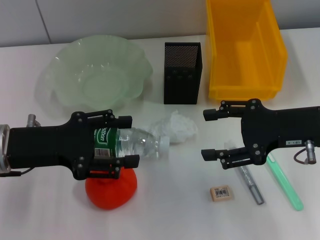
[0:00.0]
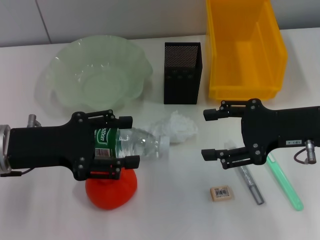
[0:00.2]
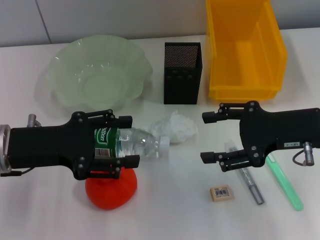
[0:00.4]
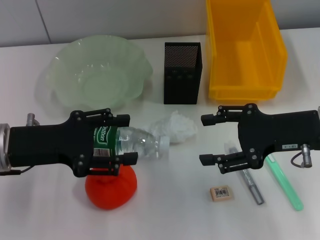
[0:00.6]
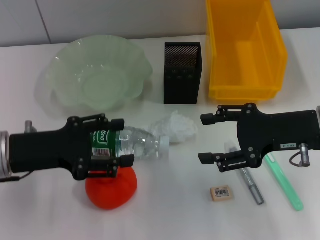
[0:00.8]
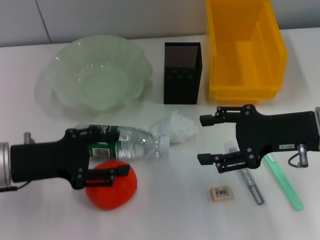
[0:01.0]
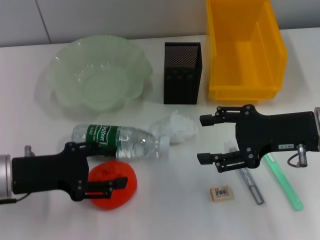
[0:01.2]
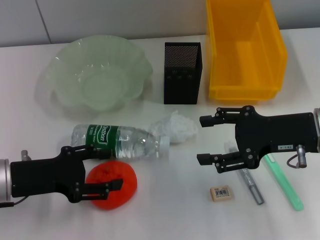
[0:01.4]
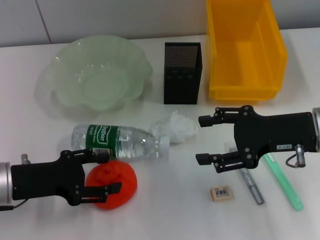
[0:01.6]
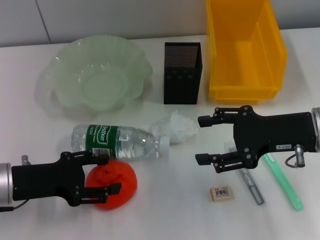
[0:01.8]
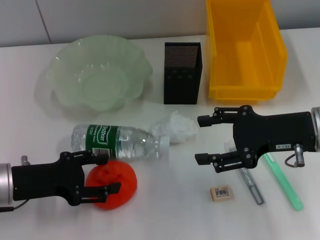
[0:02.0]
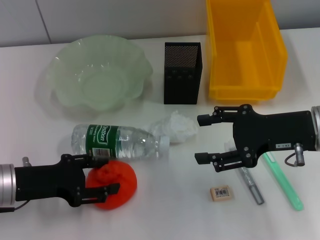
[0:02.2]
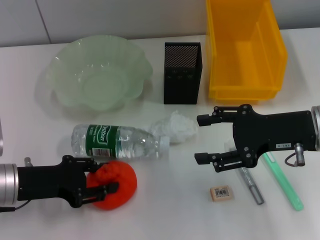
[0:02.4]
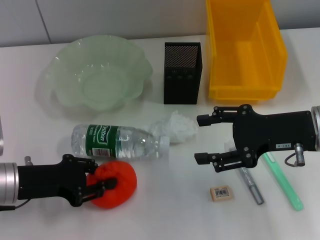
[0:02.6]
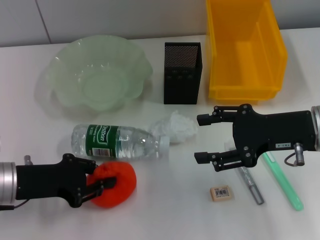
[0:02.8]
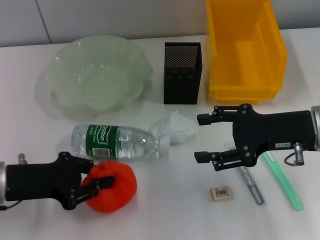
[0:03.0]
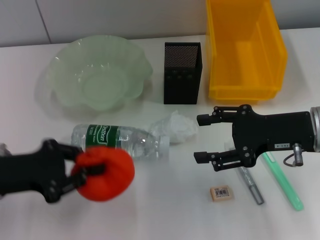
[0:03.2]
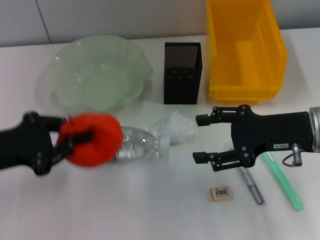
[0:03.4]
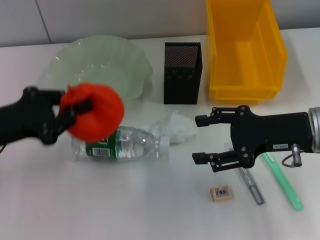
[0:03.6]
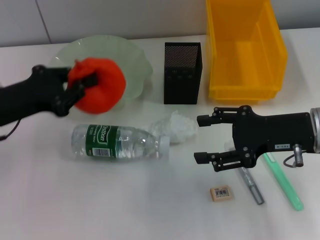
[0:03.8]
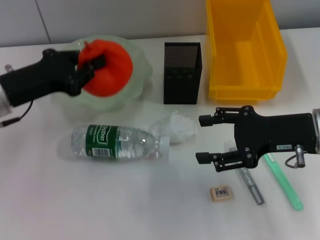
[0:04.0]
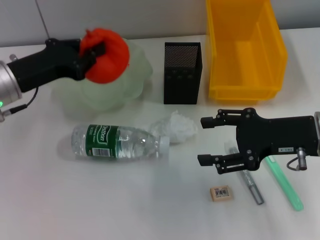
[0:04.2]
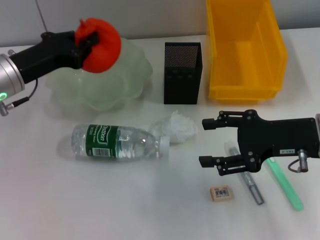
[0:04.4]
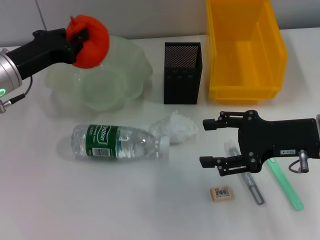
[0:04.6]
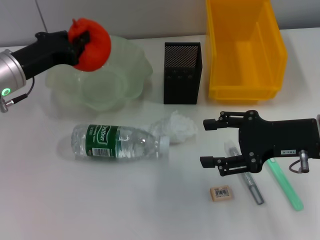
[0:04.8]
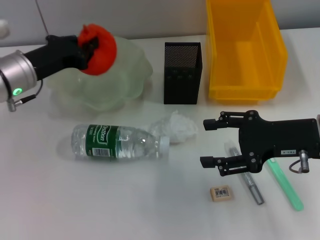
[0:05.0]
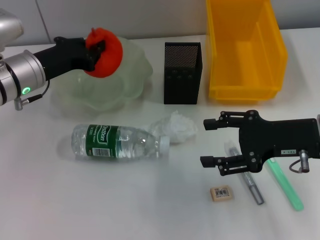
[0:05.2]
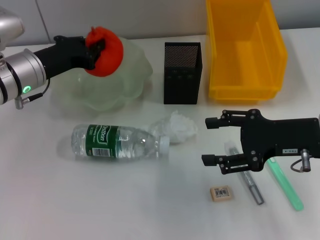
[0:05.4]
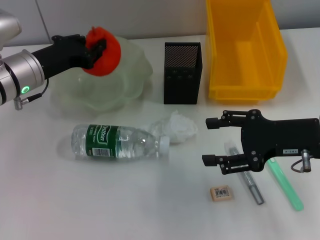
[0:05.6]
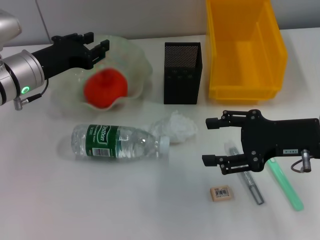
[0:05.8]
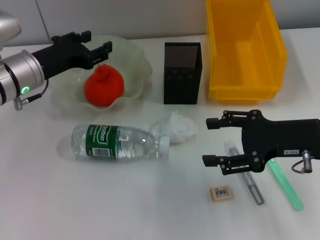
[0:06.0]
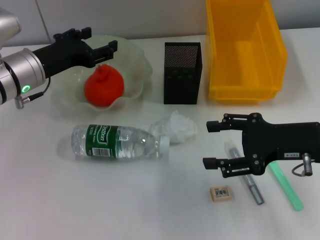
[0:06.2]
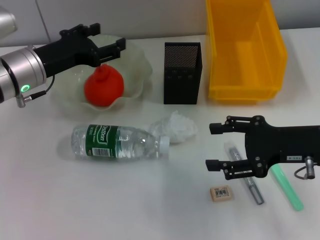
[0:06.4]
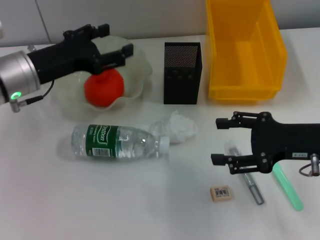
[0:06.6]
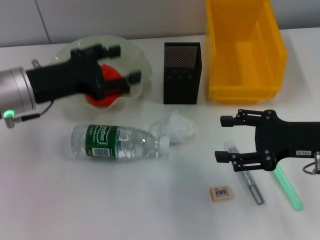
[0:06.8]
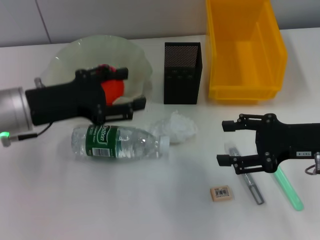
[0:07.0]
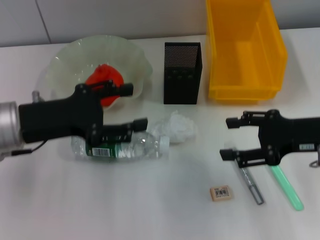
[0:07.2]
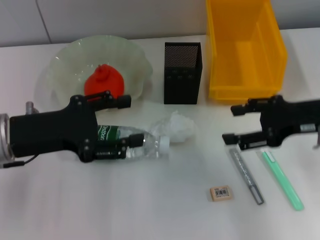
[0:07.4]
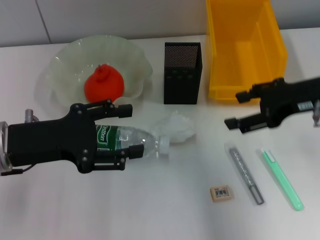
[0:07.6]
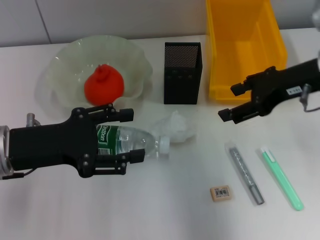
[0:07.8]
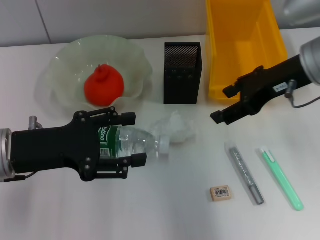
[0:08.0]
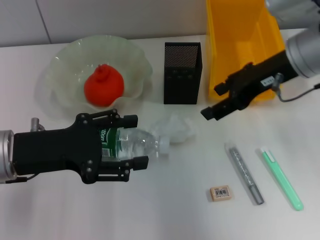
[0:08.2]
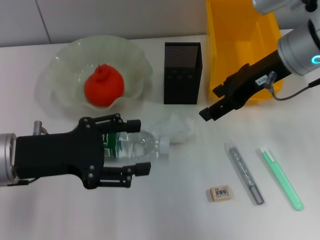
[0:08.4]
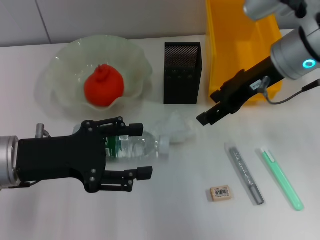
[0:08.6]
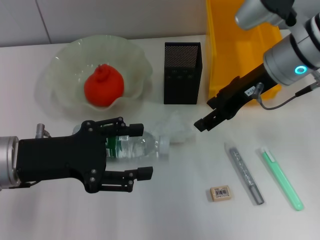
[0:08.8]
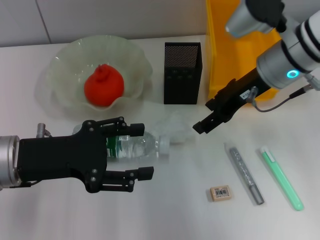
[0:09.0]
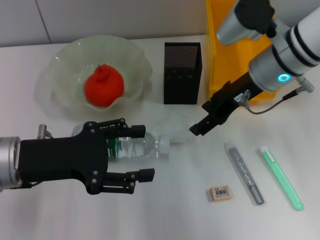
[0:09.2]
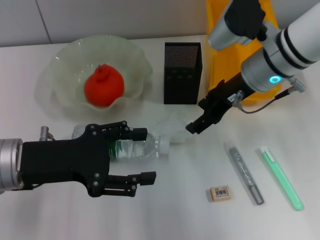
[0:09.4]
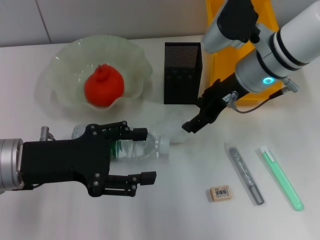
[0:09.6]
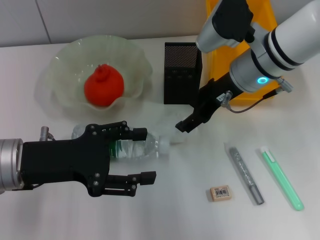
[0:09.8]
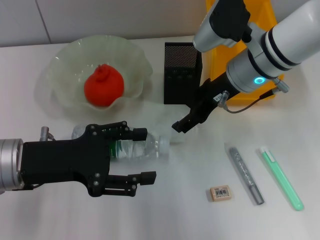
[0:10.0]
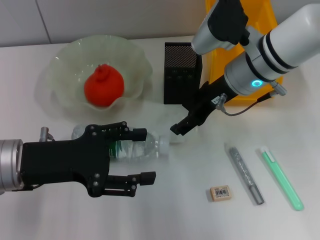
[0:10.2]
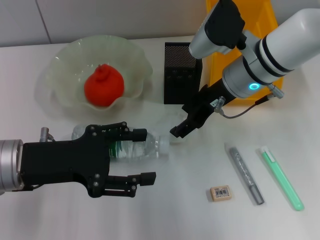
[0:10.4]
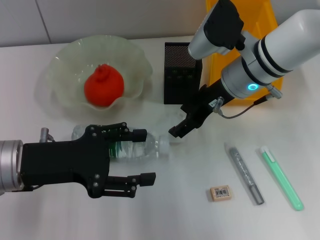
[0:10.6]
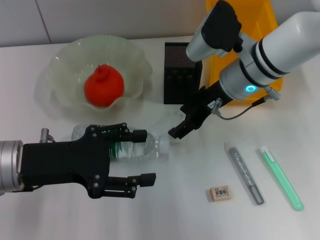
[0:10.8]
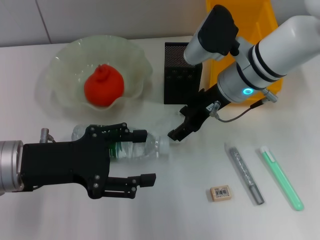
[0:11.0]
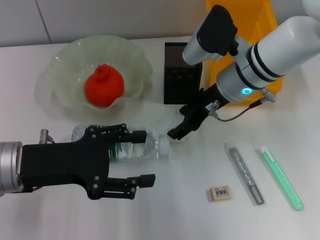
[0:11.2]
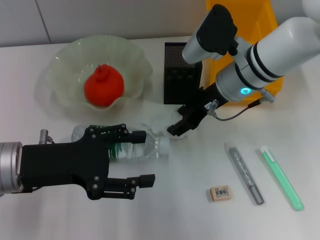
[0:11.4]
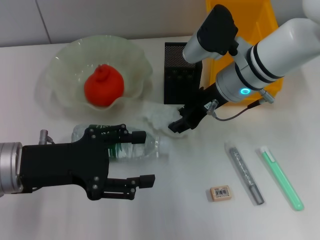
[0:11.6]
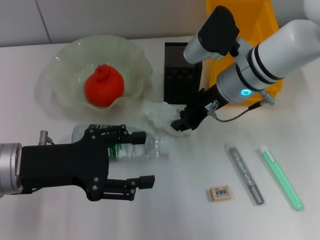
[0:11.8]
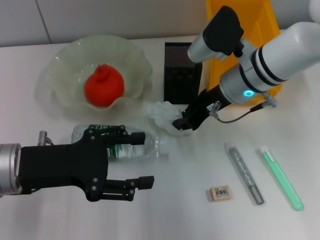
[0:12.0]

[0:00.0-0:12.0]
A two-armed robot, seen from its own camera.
Step, 0:00.0 to 0:02.6: Grab the orange with the left hand.
Step, 0:02.8 to 0:06.0: Place the orange into the fruit bowl with the left hand.
Step, 0:06.2 to 0:11.8: Grab the paper ball with the right hand.
0:00.0 to 0:01.6: The left gripper heads downward, covering about 5 cm.
0:01.6 to 0:03.0: The left gripper closes.
0:03.0 to 0:04.4: The left gripper moves forward and upward, roughly 10 cm.
0:04.4 to 0:06.0: The left gripper opens its fingers.
0:06.0 to 0:07.6: The left gripper moves backward, roughly 10 cm, and opens up, while the right gripper goes some 5 cm upward.
0:07.6 to 0:09.0: The right gripper shifts approximately 10 cm to the left and forward.
0:09.0 to 0:10.4: There are only small adjustments of the grippers.
0:10.4 to 0:12.0: The right gripper closes its fingers.

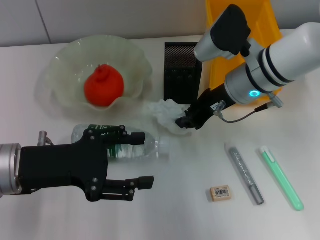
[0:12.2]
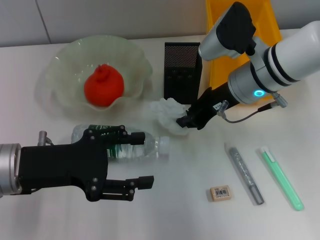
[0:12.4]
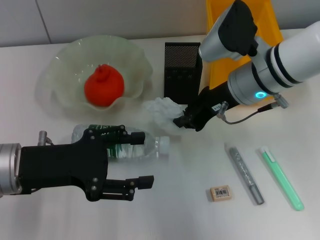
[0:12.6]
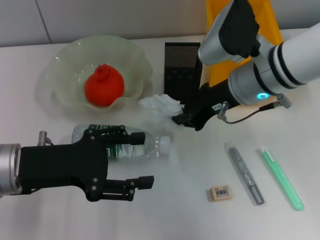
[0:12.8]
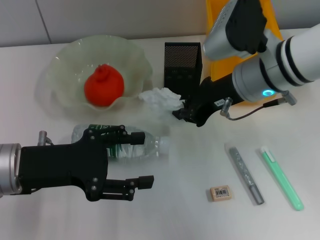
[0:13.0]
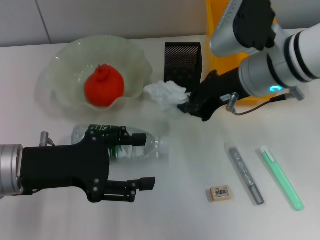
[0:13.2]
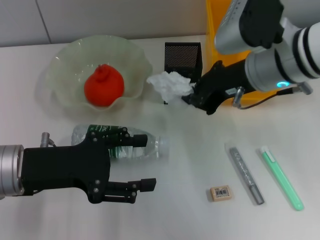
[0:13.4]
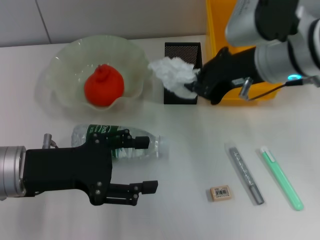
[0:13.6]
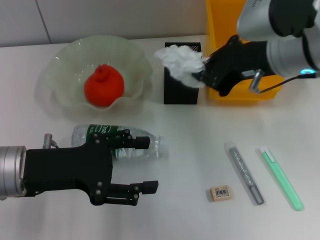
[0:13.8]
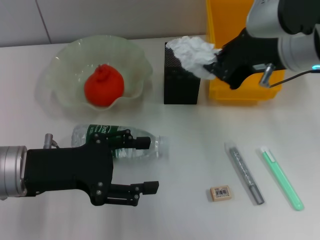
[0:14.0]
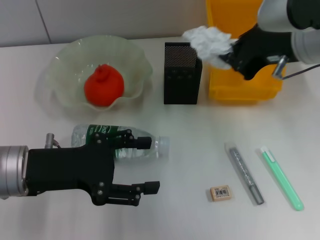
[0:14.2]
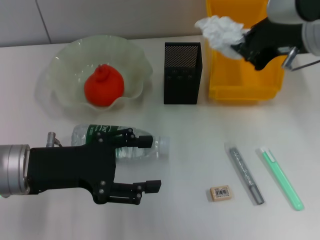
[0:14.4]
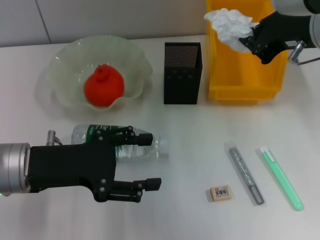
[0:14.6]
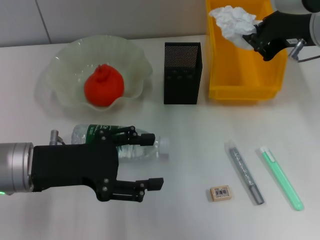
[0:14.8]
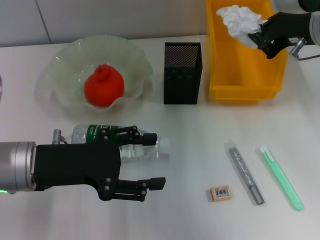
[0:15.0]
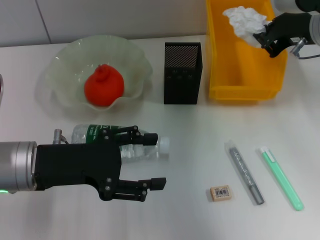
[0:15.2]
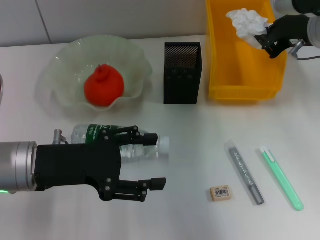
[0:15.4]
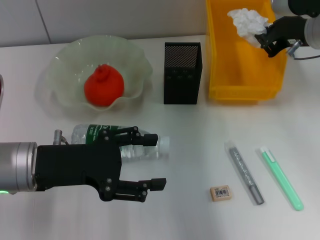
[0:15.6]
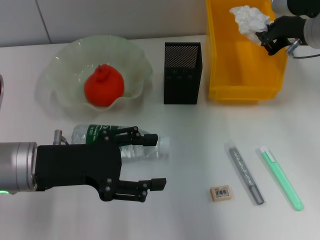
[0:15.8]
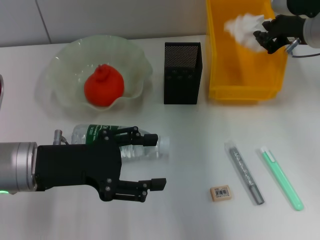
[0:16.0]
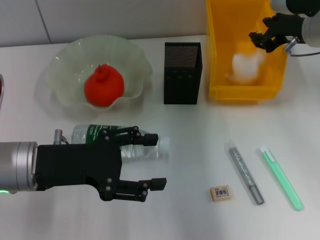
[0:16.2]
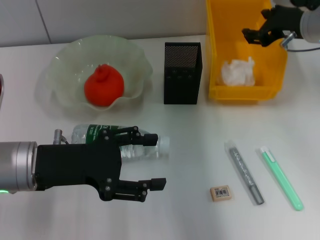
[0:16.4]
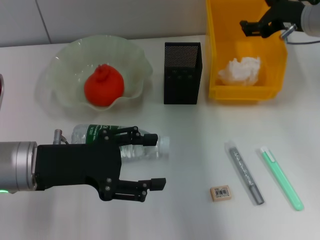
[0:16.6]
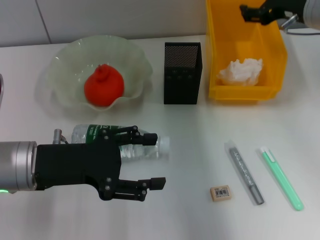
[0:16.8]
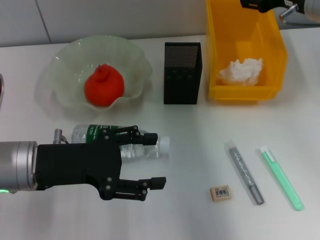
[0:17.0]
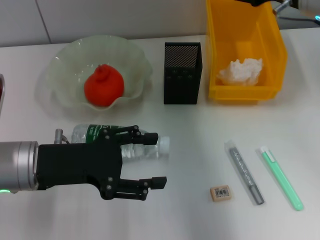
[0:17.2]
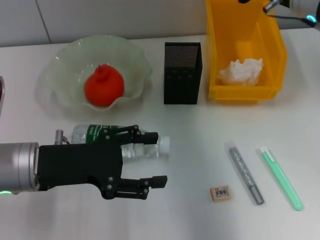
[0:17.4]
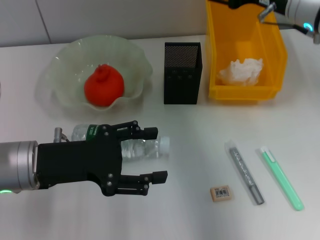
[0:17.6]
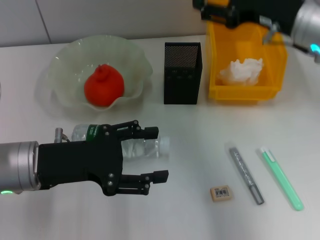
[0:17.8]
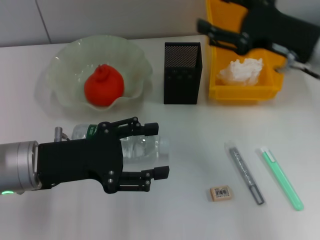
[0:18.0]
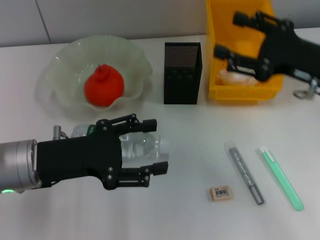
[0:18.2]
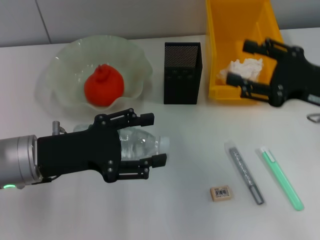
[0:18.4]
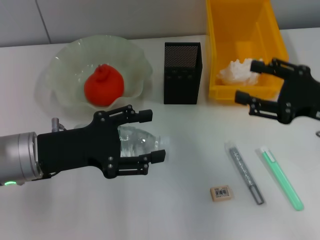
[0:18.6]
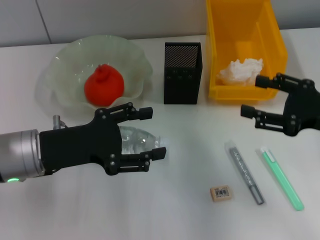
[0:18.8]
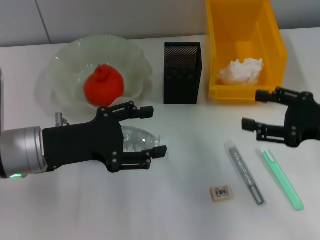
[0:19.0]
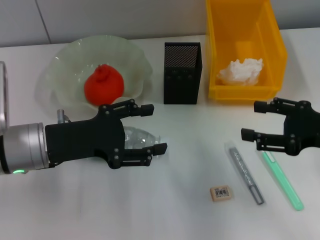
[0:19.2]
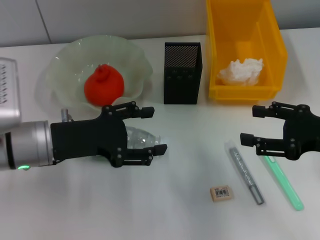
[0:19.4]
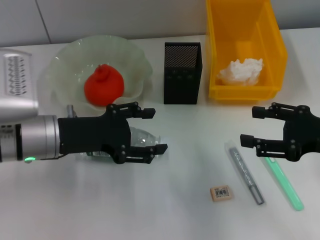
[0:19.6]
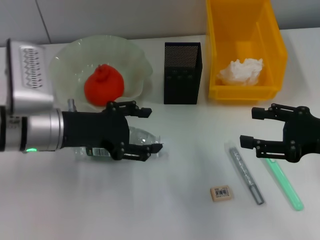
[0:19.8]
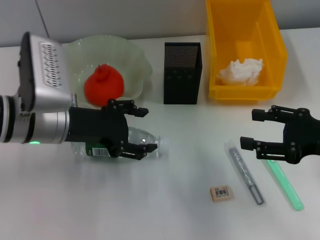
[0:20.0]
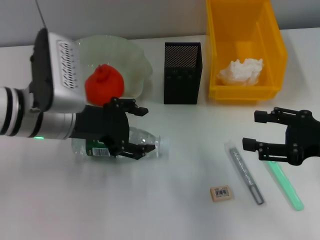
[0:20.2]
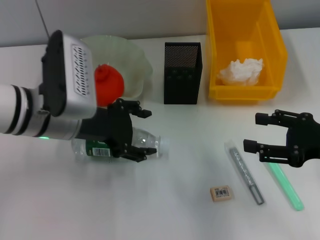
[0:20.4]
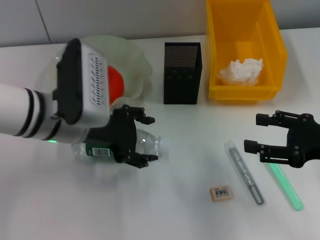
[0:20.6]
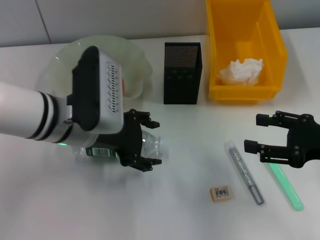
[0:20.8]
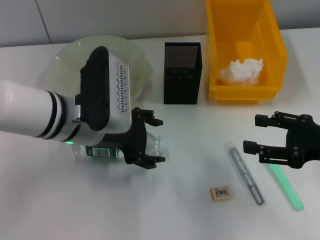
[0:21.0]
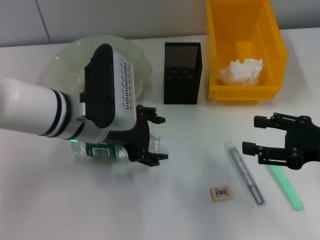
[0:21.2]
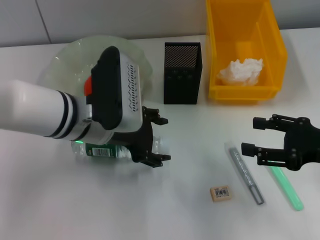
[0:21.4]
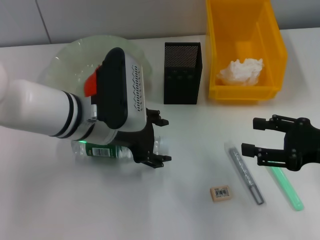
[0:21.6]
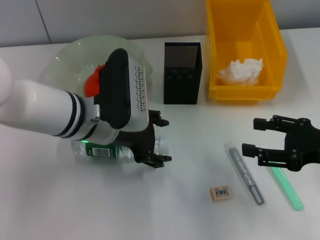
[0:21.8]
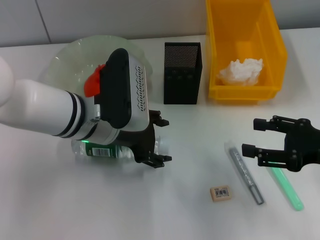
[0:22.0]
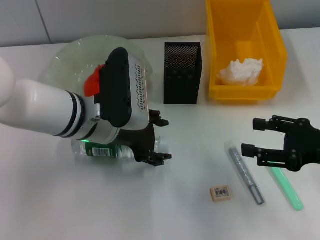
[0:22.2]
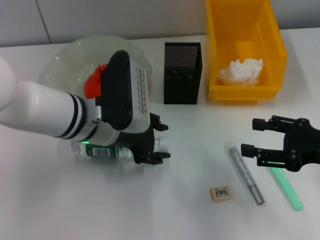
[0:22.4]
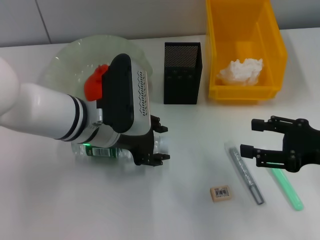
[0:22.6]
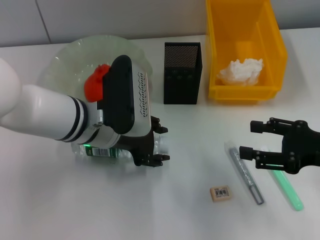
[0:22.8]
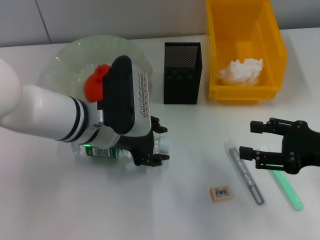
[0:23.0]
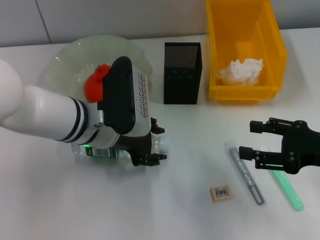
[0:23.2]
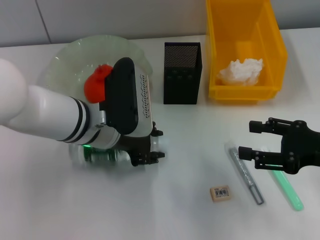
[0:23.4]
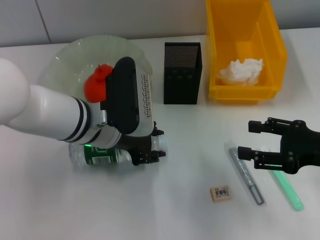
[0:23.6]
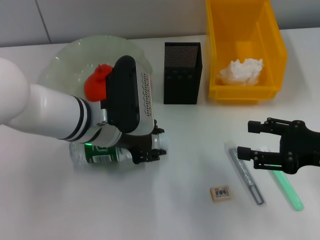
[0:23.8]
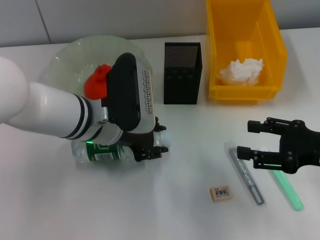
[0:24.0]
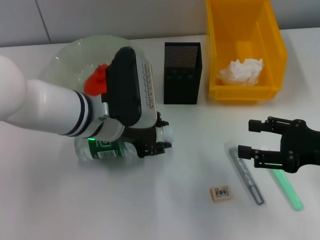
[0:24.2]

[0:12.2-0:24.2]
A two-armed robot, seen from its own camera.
Step, 0:12.2 to 0:16.8: Place the paper ball into the trash can with the right hand.
Step, 0:17.0 to 0:24.2: Grab the water bottle with the left hand.
0:12.2 to 0:13.8: The right gripper travels upward and backward by some 10 cm.
0:13.8 to 0:15.2: The right gripper shifts approximately 5 cm to the right.
0:15.2 to 0:16.6: The right gripper opens its fingers.
0:16.6 to 0:18.2: The right gripper travels backward by some 10 cm.
0:18.2 to 0:19.8: The left gripper heads forward, covering approximately 5 cm, while the right gripper heads backward, covering roughly 5 cm.
0:19.8 to 0:21.2: The left gripper goes about 5 cm to the right.
0:21.2 to 0:22.6: The grippers stay close to where they were, moving slightly.
0:22.6 to 0:24.2: The left gripper closes up.
